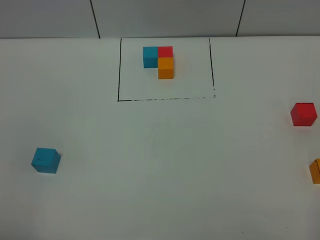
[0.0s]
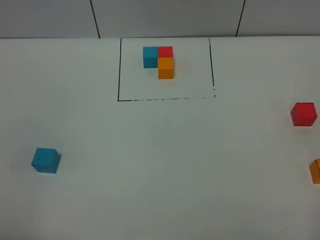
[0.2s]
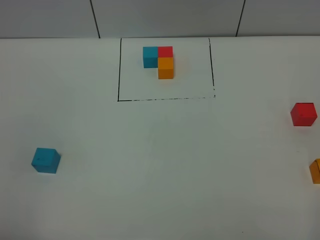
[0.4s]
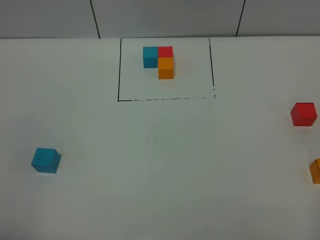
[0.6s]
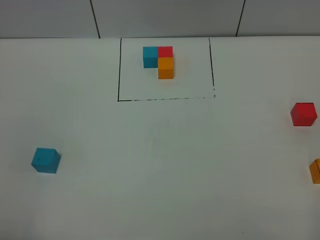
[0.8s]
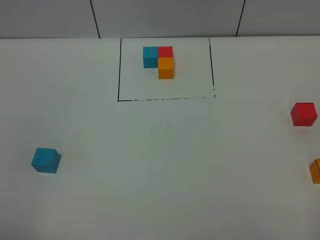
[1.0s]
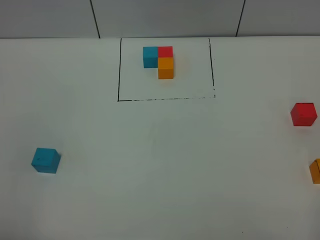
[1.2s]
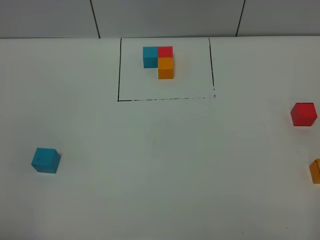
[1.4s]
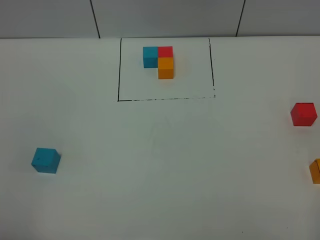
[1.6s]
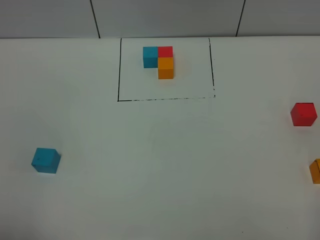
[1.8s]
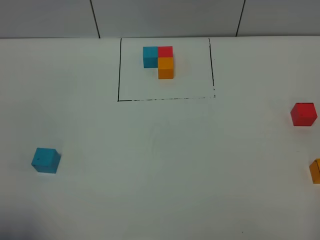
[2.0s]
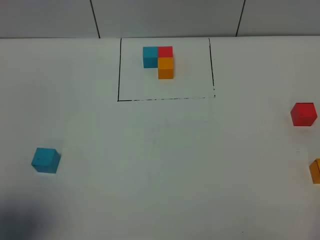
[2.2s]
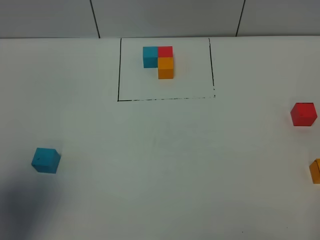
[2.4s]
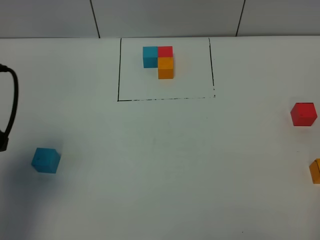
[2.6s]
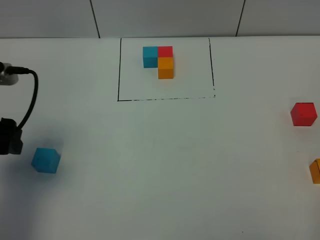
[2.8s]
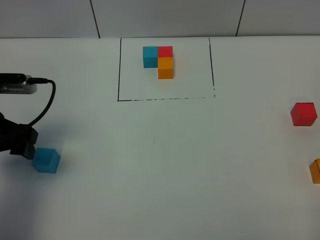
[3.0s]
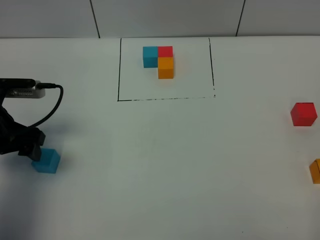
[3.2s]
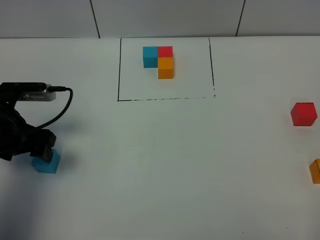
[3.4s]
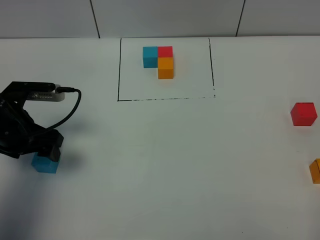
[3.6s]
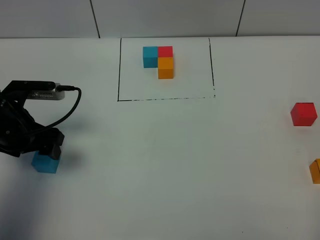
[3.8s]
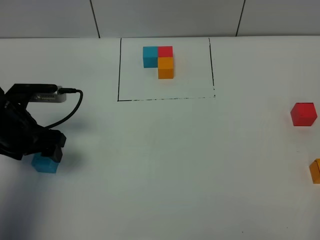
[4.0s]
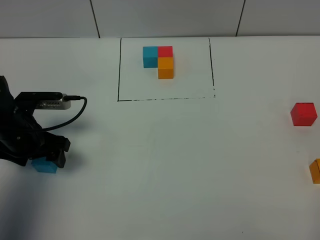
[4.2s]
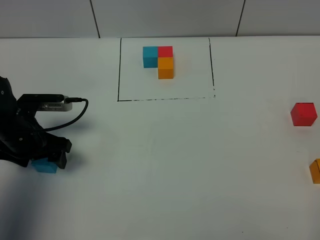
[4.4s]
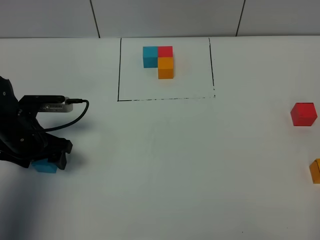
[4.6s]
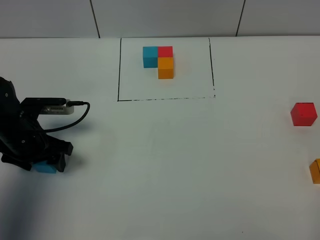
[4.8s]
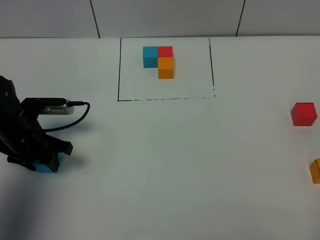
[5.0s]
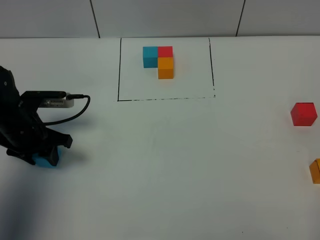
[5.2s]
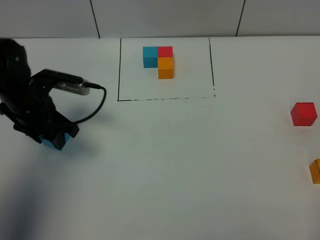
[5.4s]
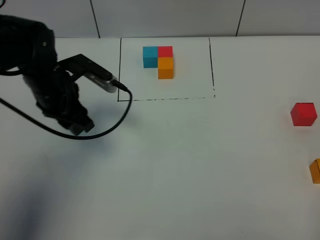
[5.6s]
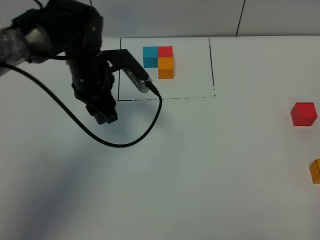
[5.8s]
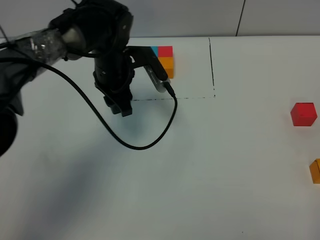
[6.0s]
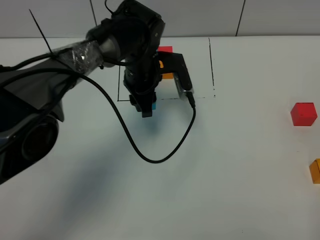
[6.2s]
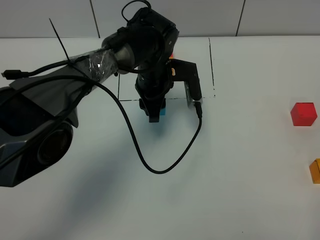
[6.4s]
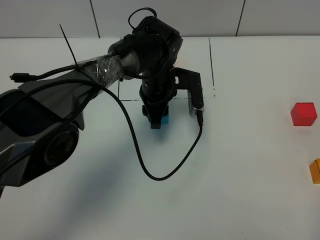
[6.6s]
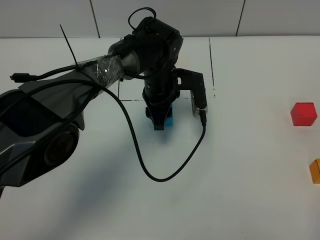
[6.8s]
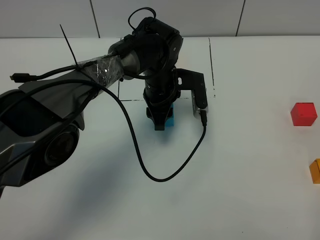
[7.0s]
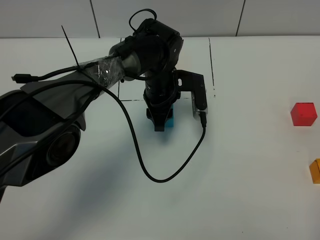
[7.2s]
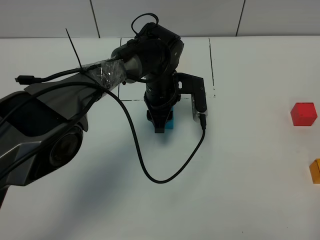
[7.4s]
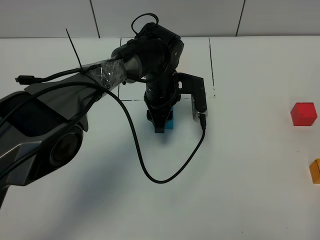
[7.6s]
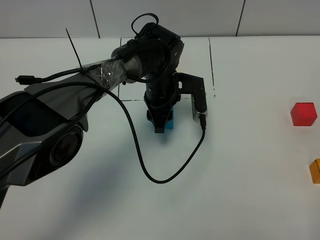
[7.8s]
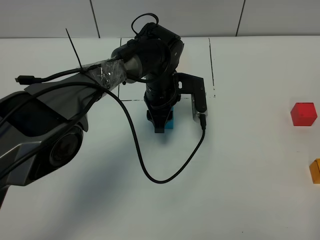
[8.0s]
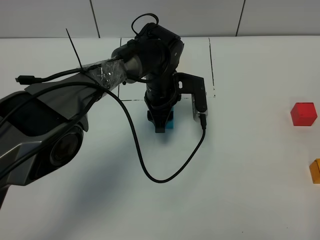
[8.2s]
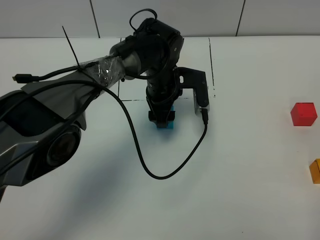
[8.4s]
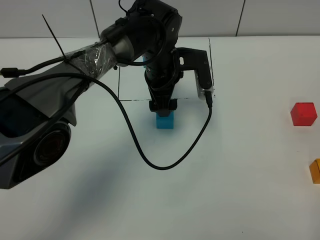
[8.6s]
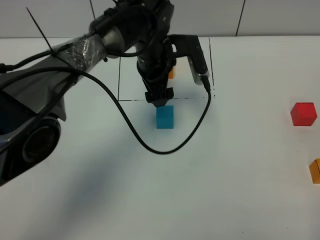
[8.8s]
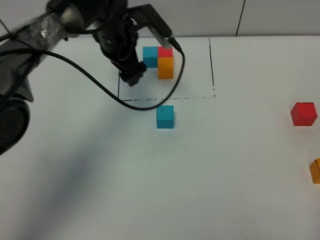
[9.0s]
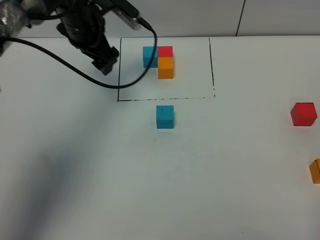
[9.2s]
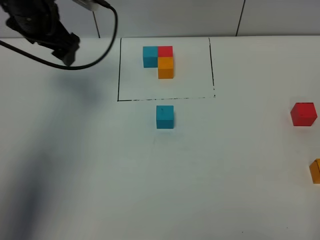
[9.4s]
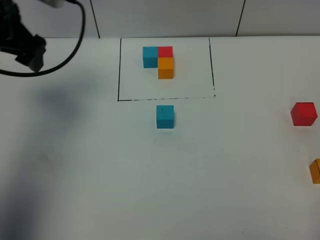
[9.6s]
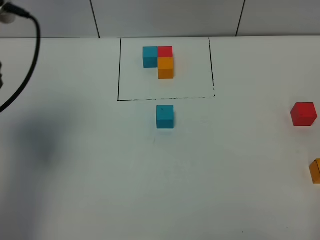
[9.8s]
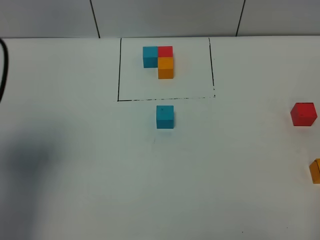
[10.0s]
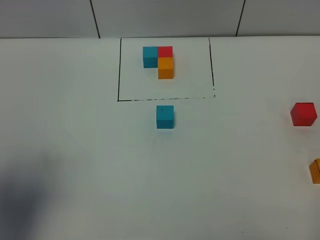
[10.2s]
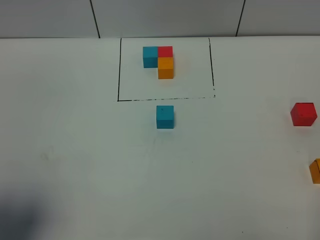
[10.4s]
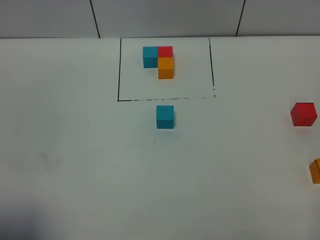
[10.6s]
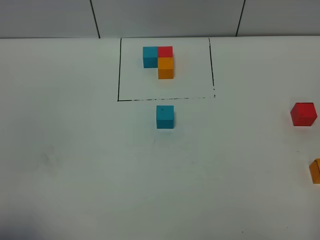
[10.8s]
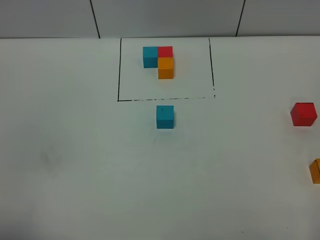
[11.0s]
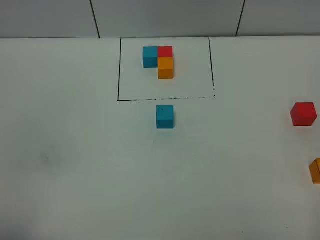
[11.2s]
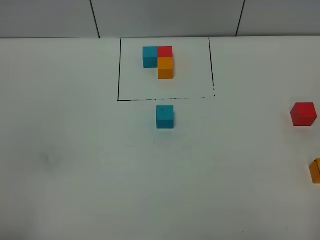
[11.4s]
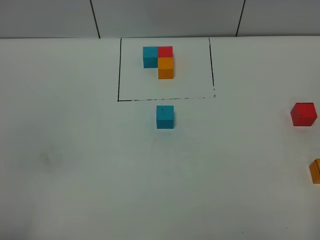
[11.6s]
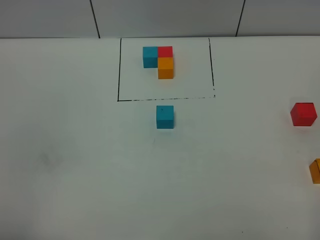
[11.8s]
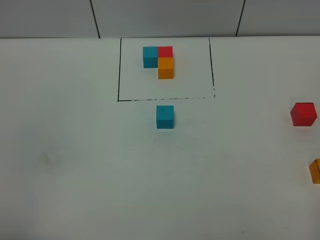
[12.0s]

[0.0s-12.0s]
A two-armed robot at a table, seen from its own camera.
Task of the whole recording: According to the building block template in front, assemble the scattered blocks together.
Step, 0.0s to 8.2s: Put the blue build block in the center of the table.
0.0s to 1.6s: Both grippers stay about where they are.
1.6s to 3.0s: The left gripper heads forward, covering about 25 cm.
3.0s to 4.4s: The left gripper moves downward, approximately 10 cm.
4.4s to 6.0s: The left gripper is displaced to the right and forward by approximately 20 cm, and closes up.
6.0s to 7.6s: The left gripper moves to the right and downward, some 10 cm.
7.6s to 9.0s: The left gripper goes roughly 15 cm upward and to the left, and opens up.
9.0s to 10.4s: The left gripper travels backward and to the left by some 40 cm.
10.4s to 12.0s: The left gripper shifts roughly 10 cm backward and downward, and closes.

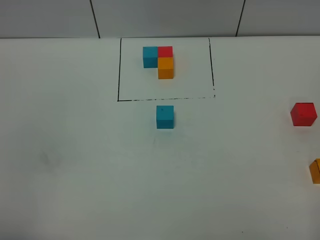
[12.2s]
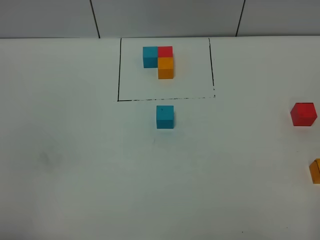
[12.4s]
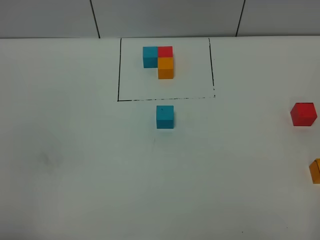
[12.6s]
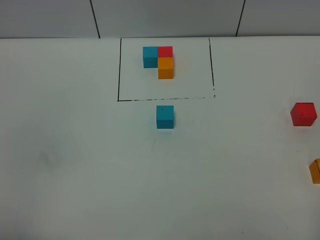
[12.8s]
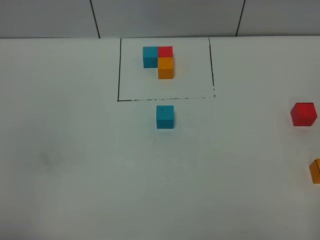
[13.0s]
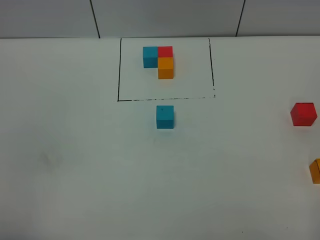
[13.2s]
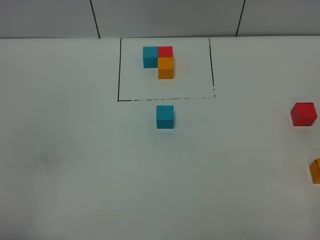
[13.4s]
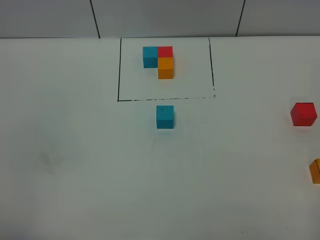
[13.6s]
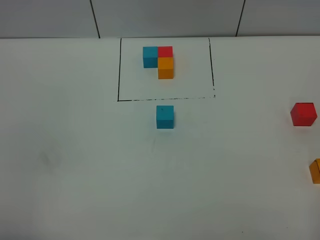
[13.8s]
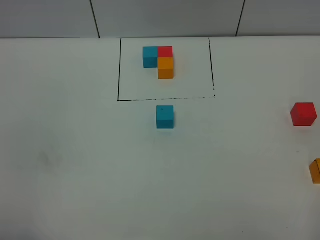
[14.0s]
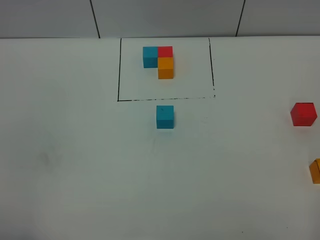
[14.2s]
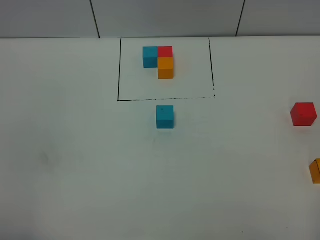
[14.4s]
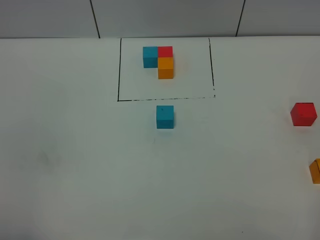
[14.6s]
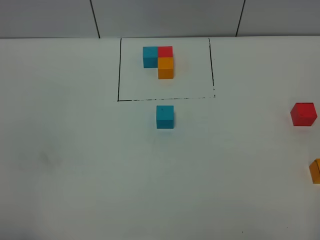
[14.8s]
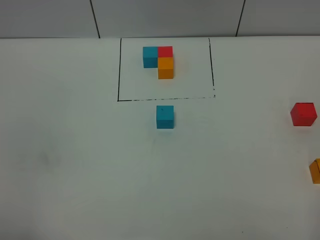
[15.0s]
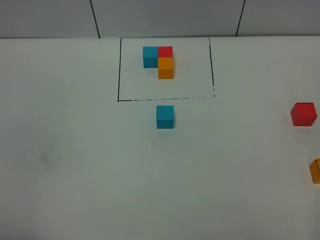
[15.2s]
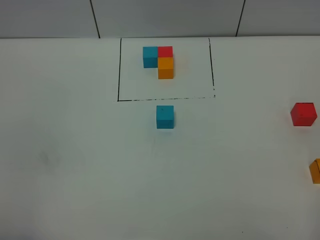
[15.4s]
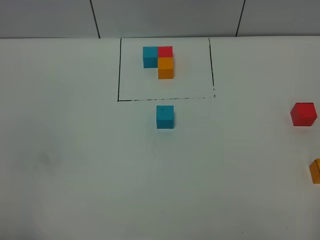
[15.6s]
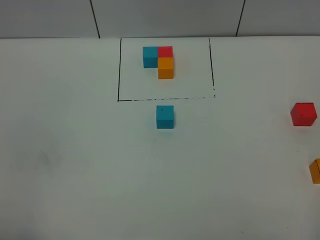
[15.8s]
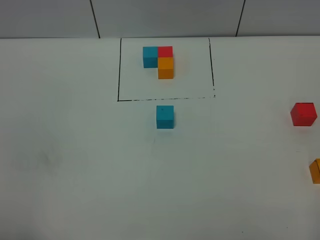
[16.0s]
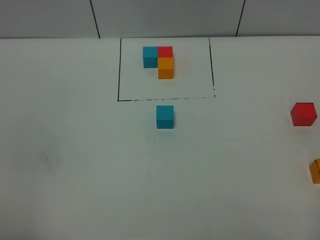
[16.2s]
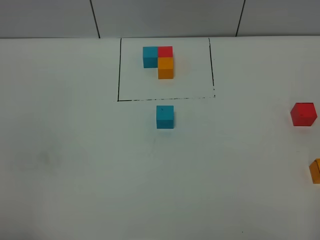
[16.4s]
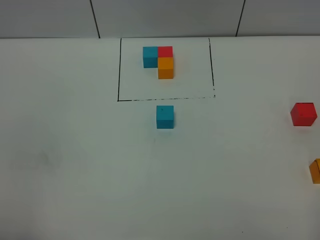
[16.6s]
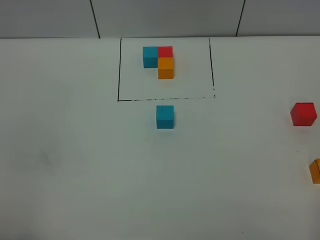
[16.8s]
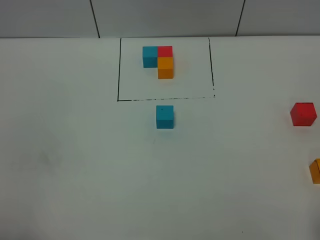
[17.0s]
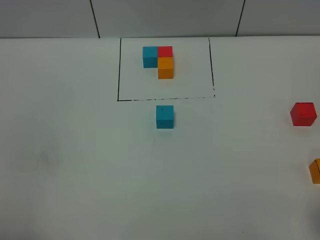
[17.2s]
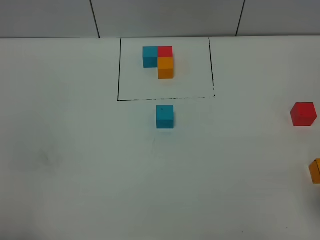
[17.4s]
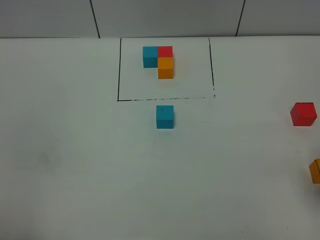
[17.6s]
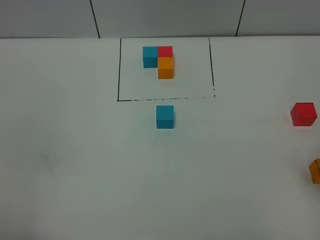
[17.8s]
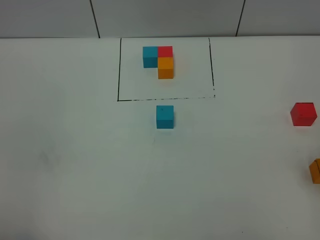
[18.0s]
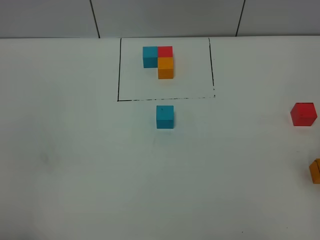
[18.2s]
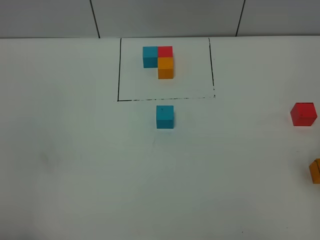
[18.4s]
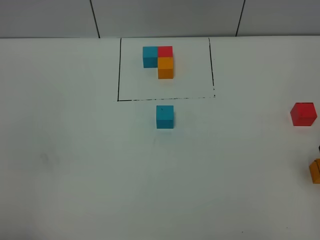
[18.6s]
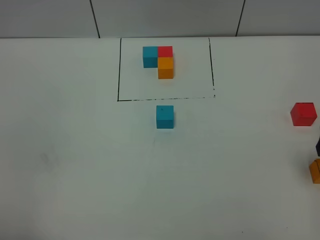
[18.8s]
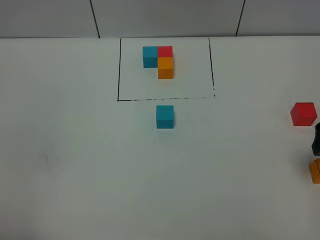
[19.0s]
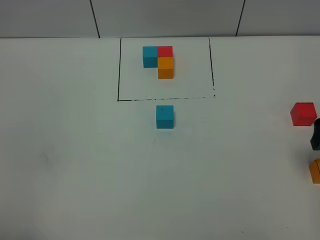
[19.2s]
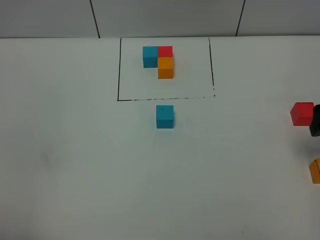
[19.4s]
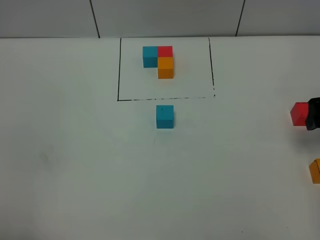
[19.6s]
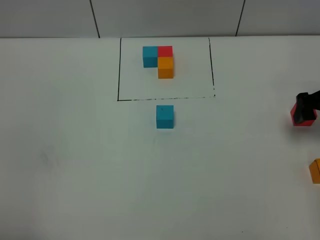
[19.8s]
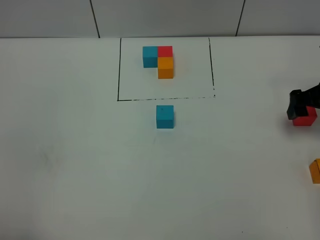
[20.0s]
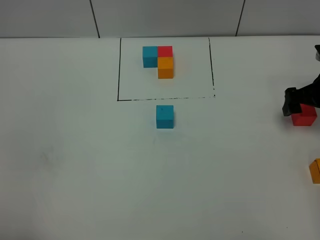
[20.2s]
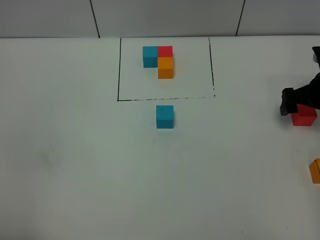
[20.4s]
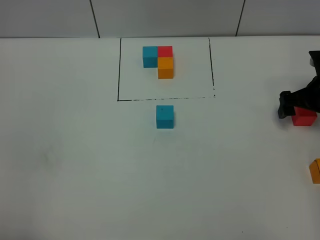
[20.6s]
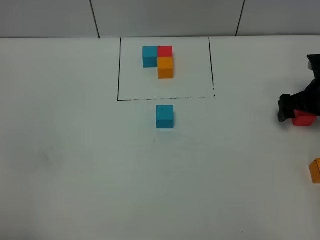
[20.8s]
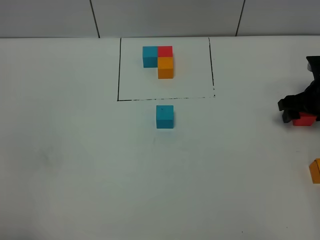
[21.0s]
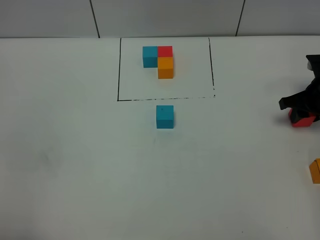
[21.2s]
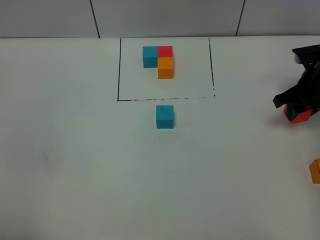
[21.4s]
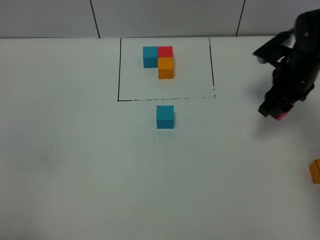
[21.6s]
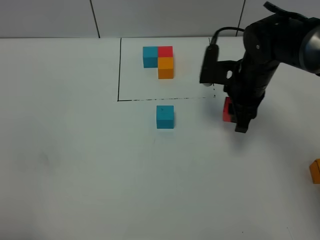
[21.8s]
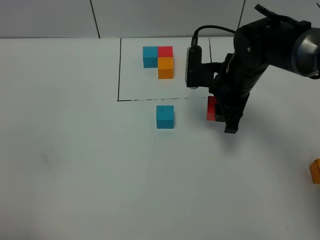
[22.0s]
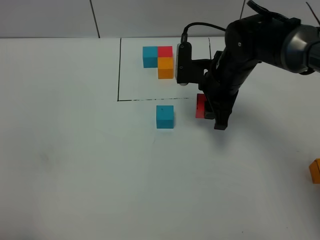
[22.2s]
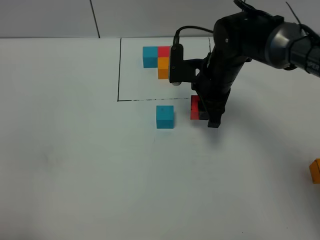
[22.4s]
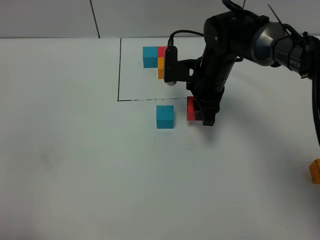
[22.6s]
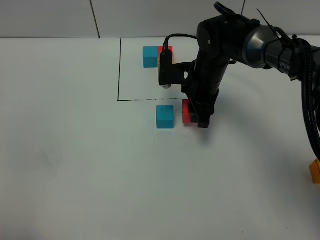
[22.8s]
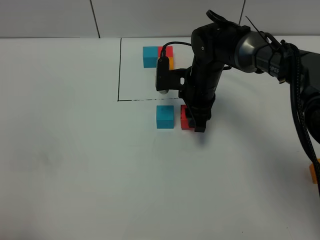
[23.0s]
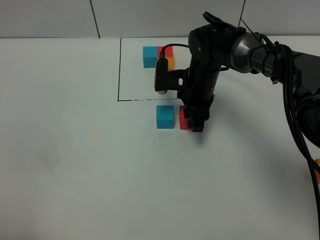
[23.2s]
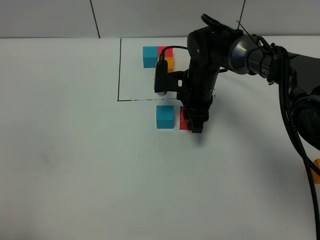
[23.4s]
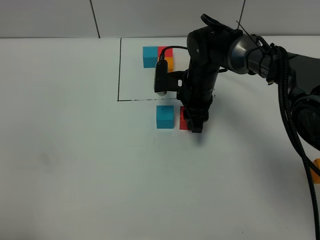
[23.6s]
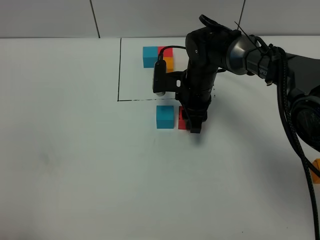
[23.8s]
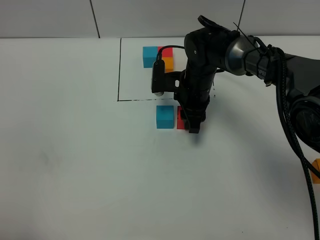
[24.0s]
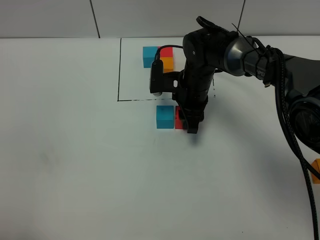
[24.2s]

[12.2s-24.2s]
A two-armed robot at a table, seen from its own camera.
Task of the whole recording: According to the building block template in front, assemble the scattered blocks together.
12.2s to 13.8s: Both grippers stay about where they are.
13.8s to 16.6s: The two grippers keep their place.
18.2s to 19.8s: The right gripper heads forward and downward, covering some 15 cm.
19.8s to 21.2s: The right gripper moves downward, roughly 5 cm, and closes its fingers.
21.2s to 22.6s: The right gripper moves to the left, approximately 25 cm.
22.6s to 24.2s: The grippers stay close to where they were, moving slightly.
